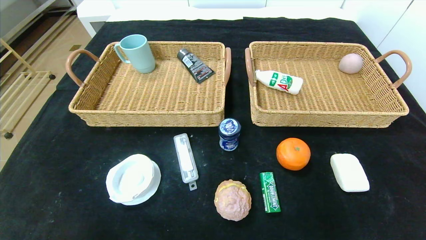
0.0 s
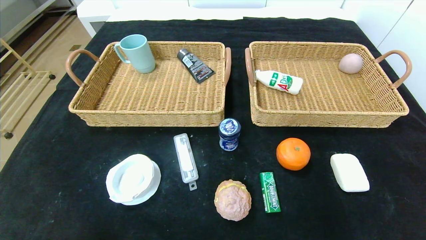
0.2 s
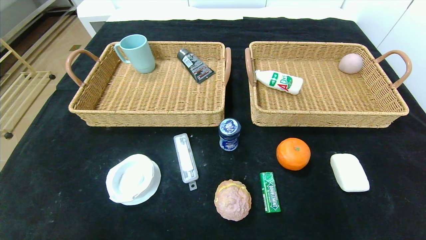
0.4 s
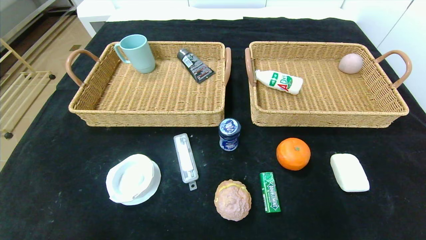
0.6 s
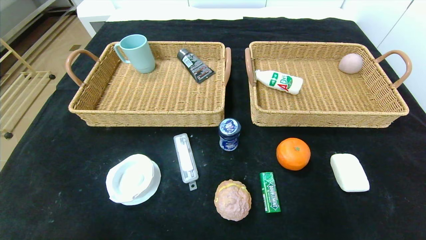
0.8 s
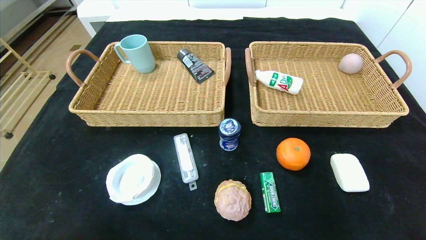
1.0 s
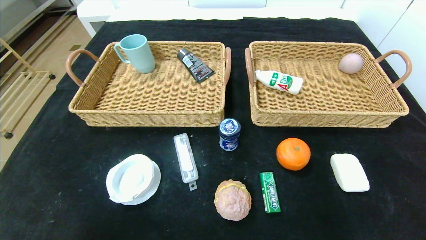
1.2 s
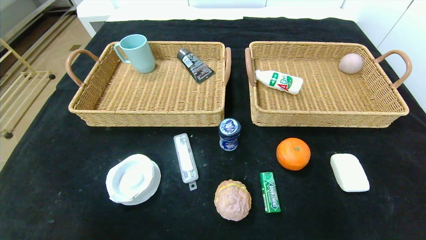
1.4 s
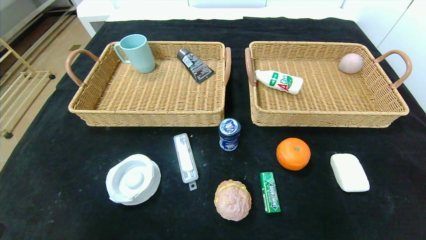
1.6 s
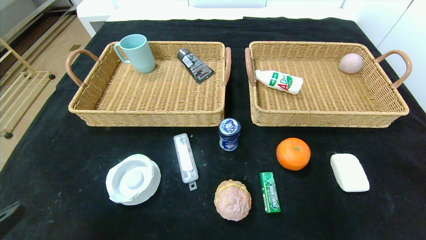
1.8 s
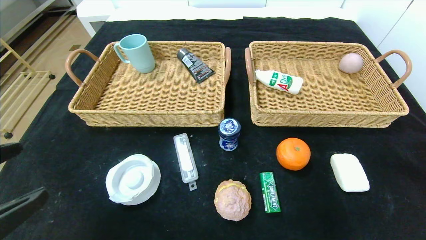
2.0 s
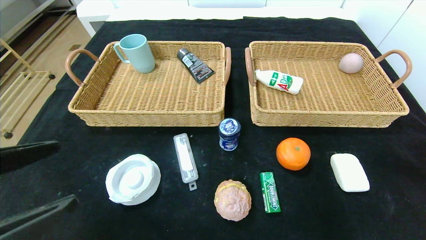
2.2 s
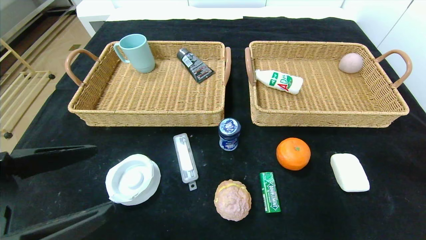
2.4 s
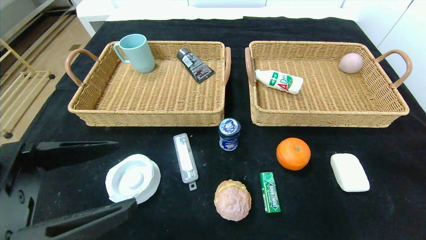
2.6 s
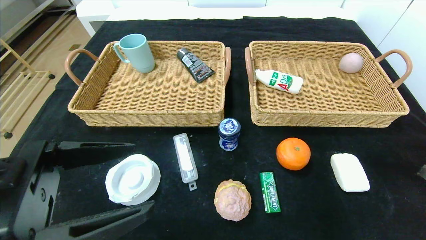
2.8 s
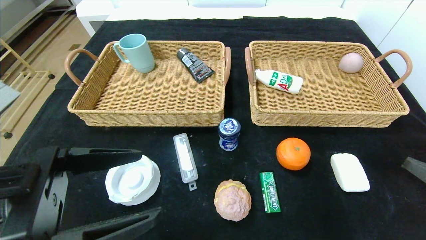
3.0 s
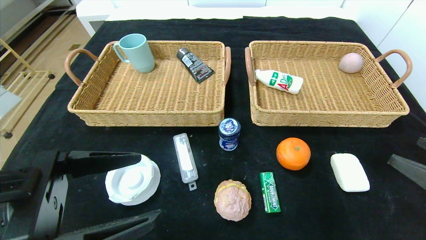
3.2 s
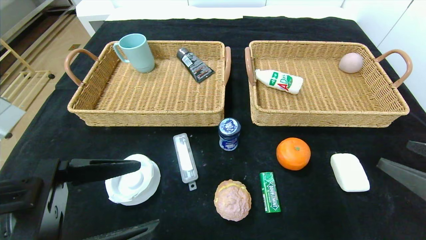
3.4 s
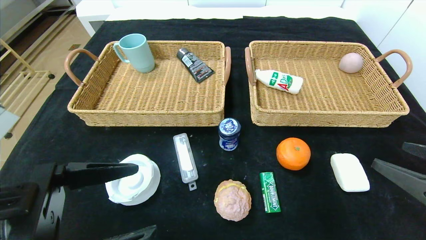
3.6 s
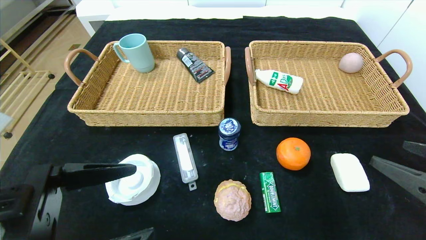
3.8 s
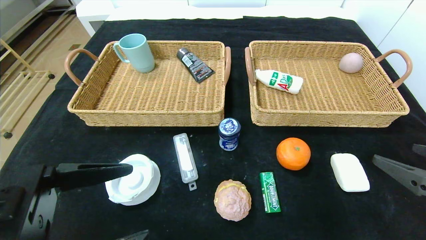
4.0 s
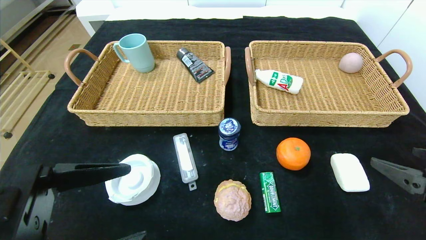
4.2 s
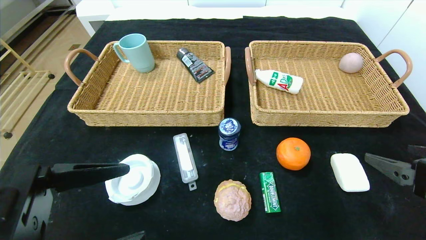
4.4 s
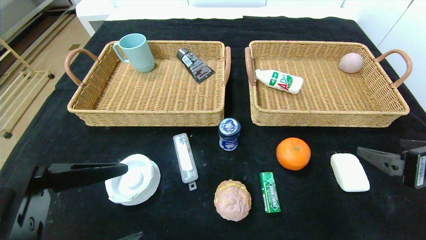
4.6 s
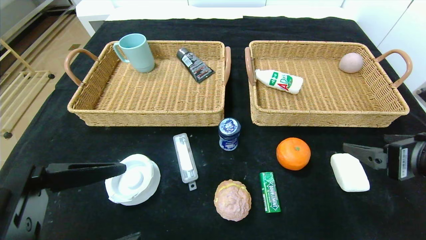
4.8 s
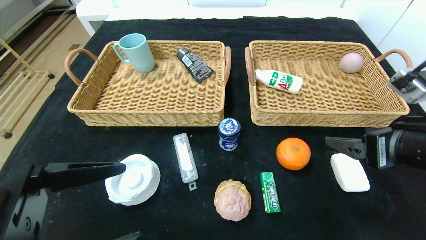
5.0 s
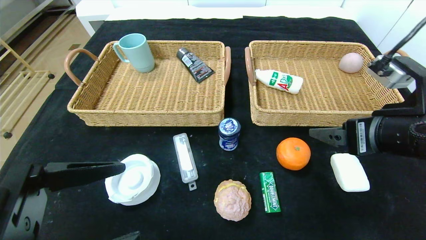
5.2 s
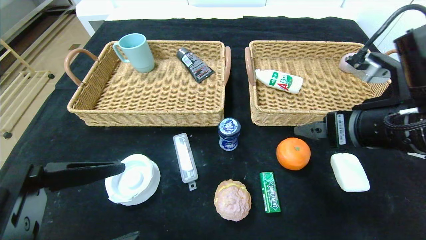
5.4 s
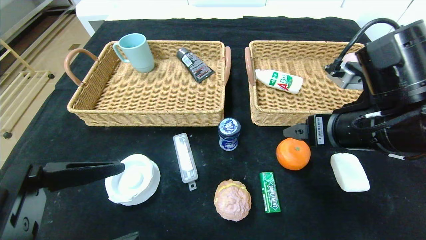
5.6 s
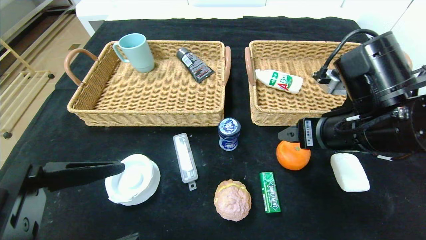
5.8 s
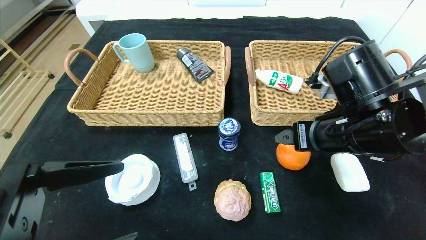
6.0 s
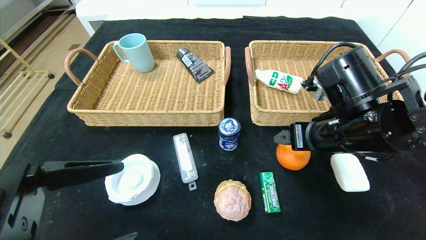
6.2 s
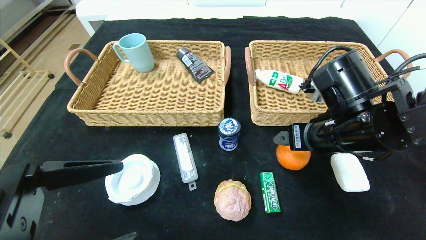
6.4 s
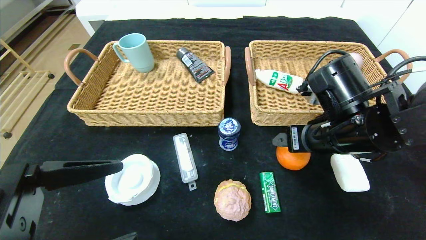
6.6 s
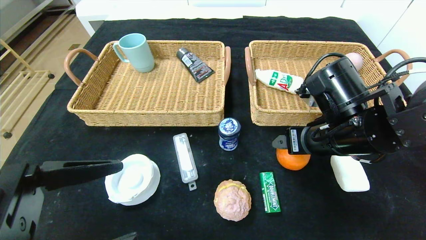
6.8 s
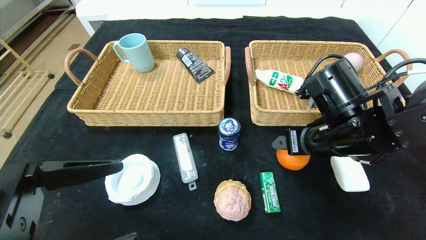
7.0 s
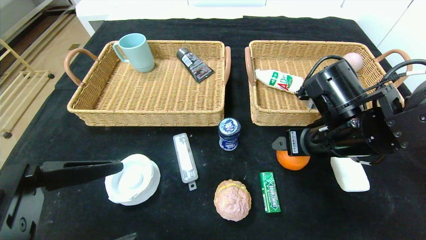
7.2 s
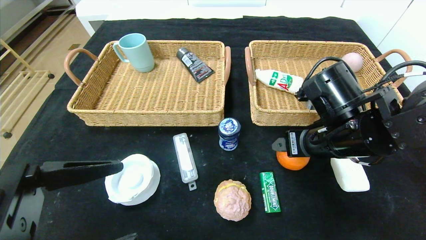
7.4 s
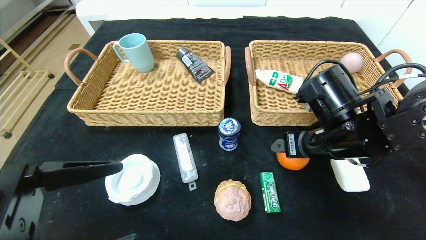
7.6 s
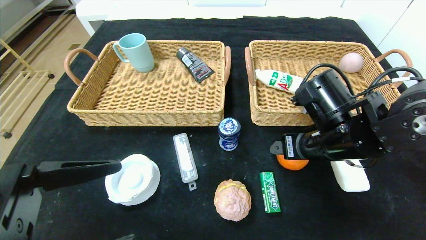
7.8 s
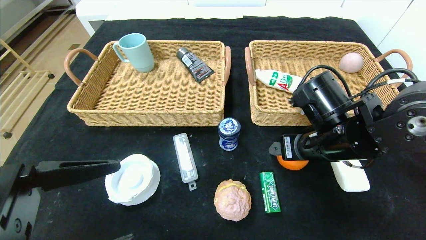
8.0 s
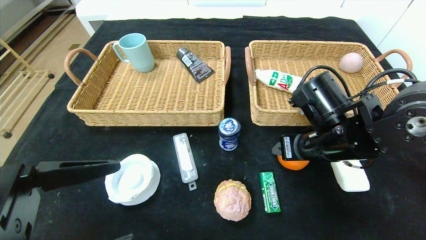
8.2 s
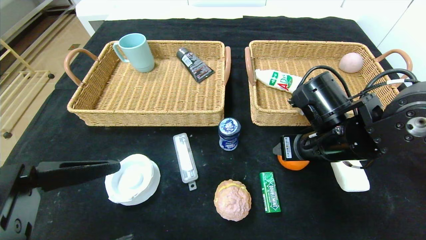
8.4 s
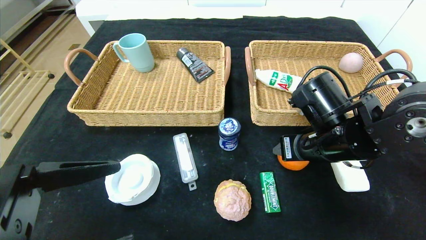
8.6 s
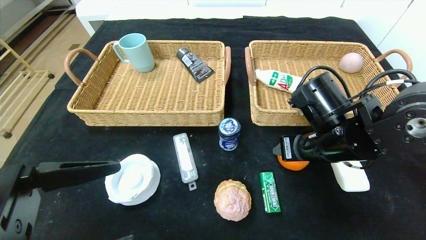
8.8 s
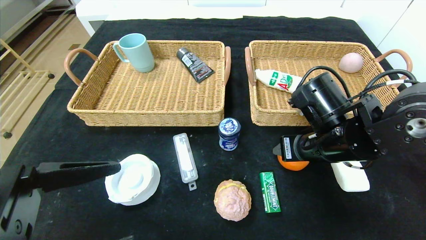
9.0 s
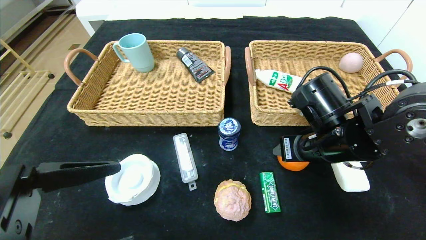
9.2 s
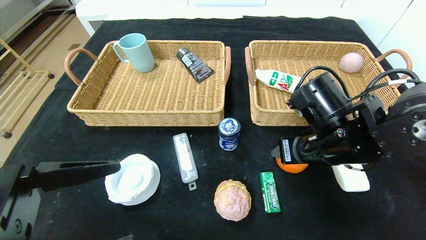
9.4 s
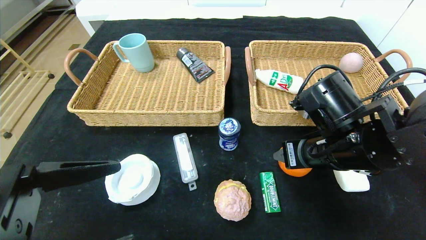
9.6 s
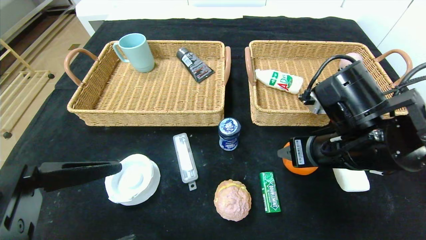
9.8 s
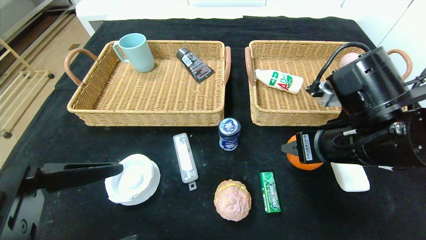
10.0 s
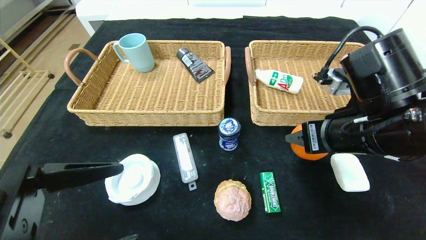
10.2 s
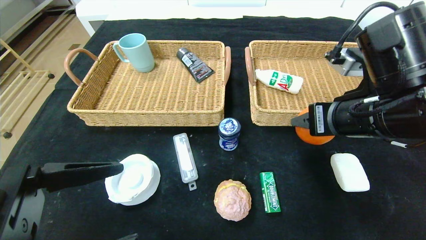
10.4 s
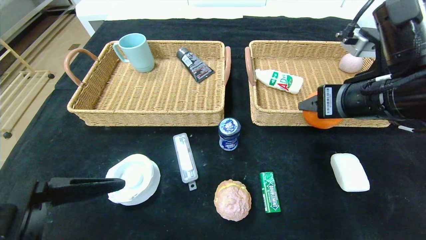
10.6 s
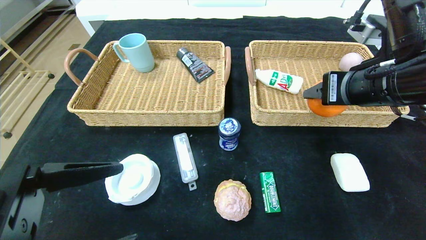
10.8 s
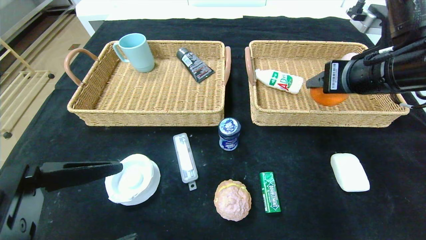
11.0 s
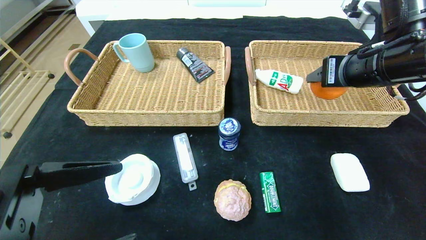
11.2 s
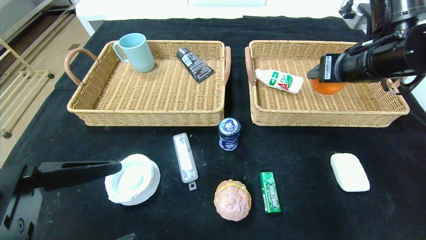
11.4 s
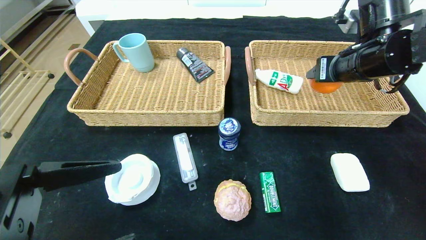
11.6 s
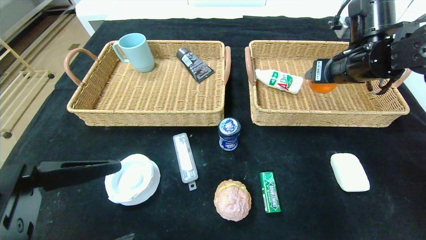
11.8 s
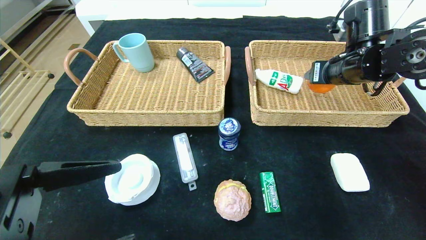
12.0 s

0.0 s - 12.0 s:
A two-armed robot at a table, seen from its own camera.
1.6 s - 3.0 s: The left gripper is displaced forward and to the right by some 15 cm; the right gripper heads forward, covering some 10 cm.
3.0 s - 4.4 s: The right gripper heads forward, covering some 5 cm.
4.4 s - 6.0 s: The right gripper goes approximately 15 cm to the left and forward.
6.0 s - 7.6 s: The grippers make only small movements.
7.6 s - 9.0 s: The right gripper closes its fingers.
9.0 s - 10.4 s: The right gripper heads upward, covering about 5 cm.
10.4 s - 12.0 s: The right gripper heads forward, covering some 15 cm.

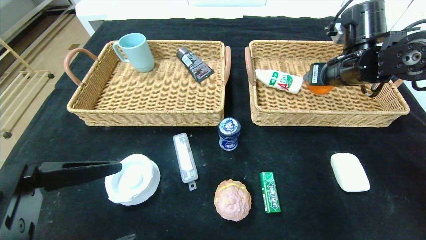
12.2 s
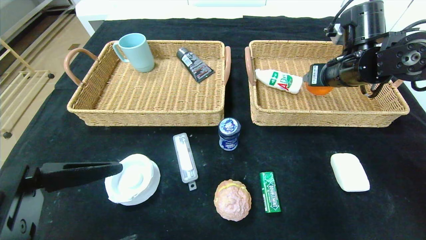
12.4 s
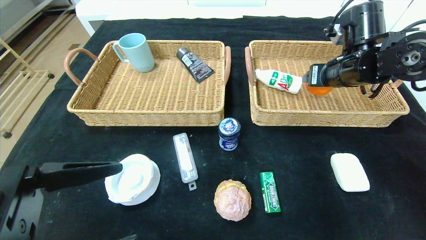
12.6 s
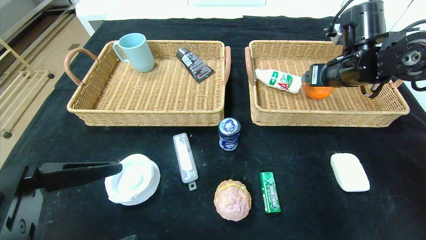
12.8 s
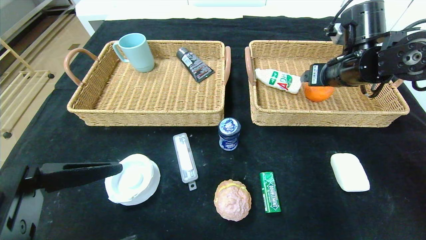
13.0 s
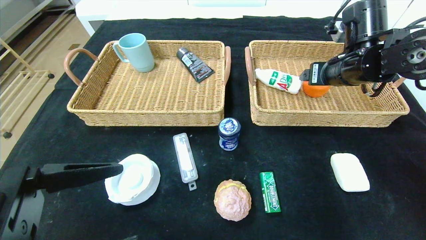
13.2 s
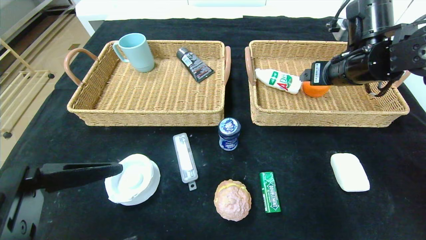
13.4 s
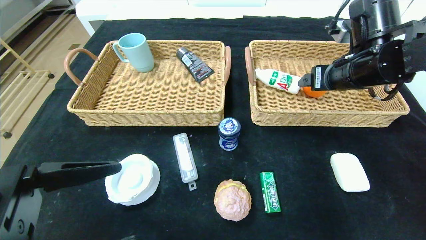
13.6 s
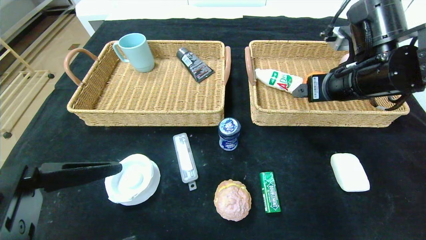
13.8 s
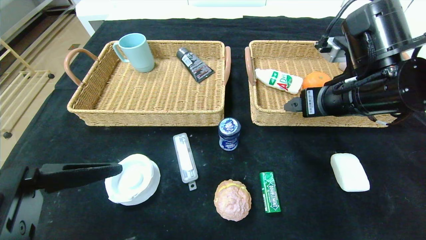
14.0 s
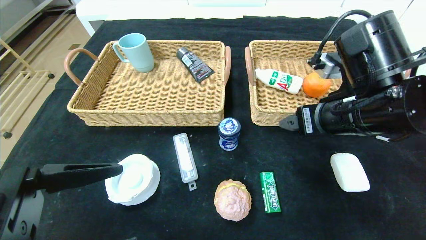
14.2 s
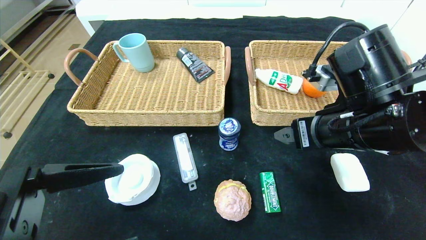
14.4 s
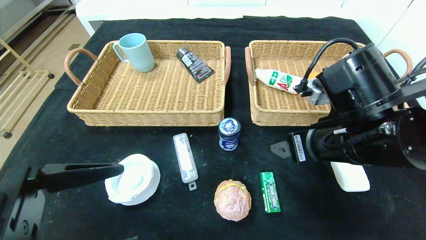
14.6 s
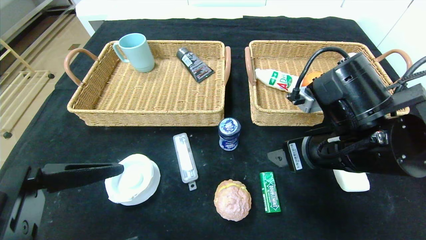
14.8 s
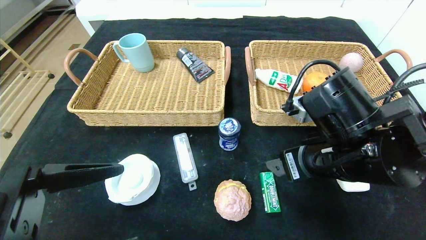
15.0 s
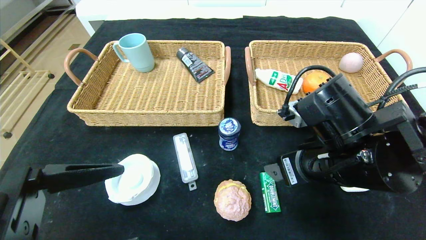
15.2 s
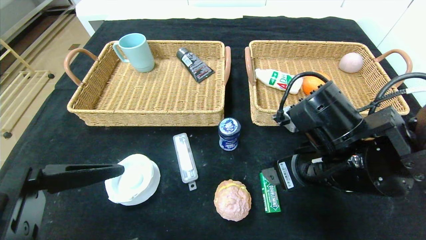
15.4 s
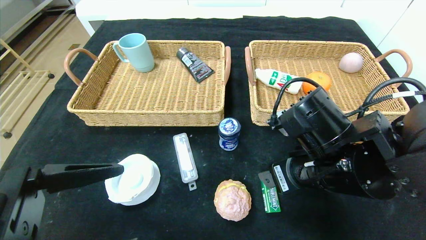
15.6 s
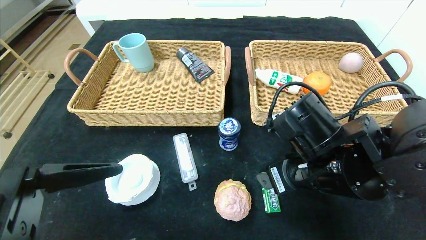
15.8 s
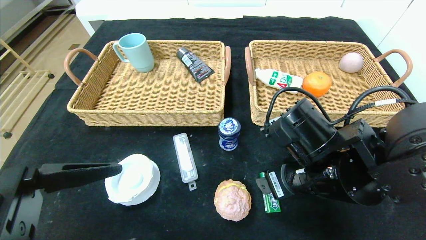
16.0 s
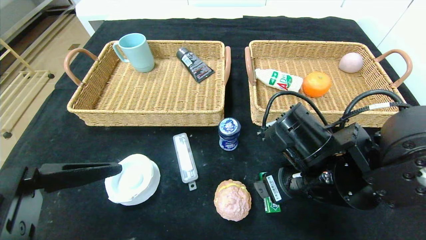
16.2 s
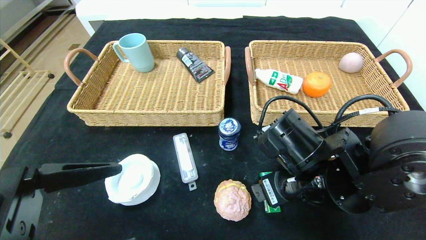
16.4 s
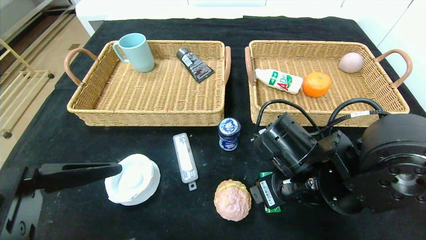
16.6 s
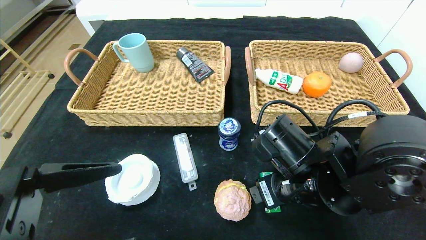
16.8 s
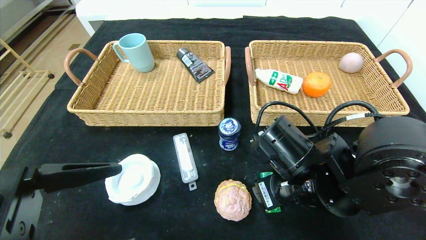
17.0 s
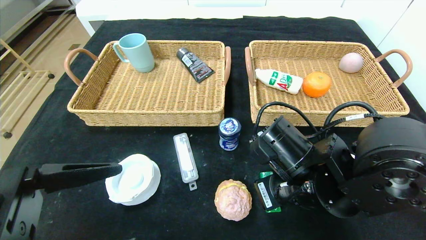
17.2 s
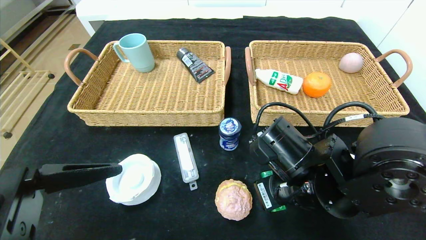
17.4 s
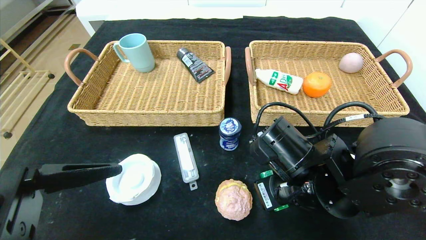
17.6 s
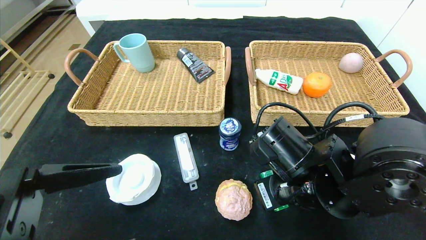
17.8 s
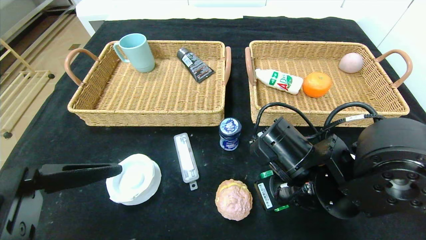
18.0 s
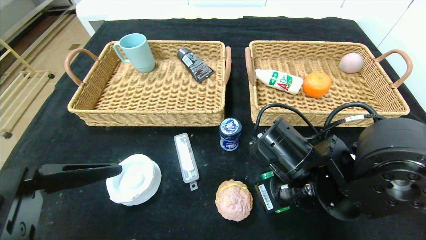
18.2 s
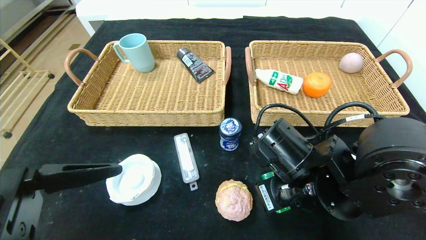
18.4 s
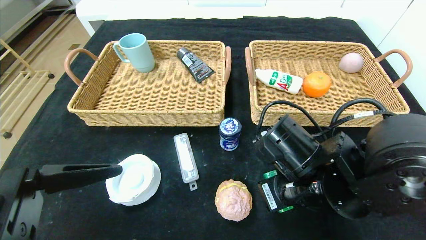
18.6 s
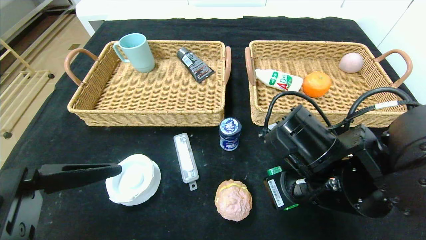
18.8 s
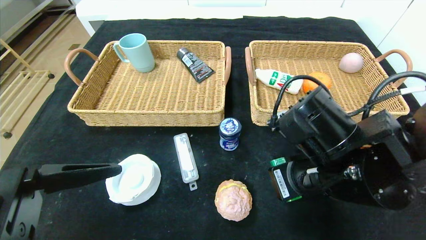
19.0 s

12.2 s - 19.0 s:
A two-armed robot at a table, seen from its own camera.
12.2 s - 13.6 s: The right gripper opens its fingers.
13.6 s - 15.0 s: The right gripper goes about 15 cm backward, downward and to the left.
15.0 s - 16.2 s: The grippers make only small movements.
16.2 s - 17.6 s: The right gripper closes.
17.6 s - 19.0 s: The grippers make only small movements.
